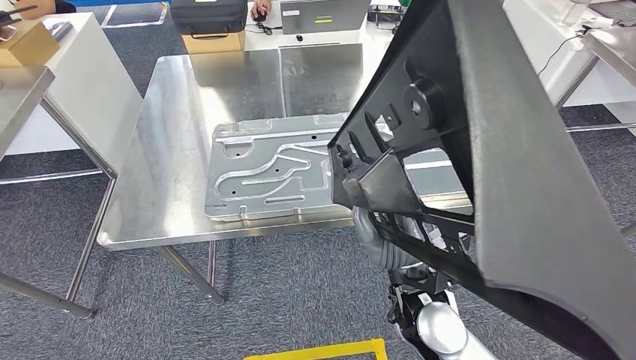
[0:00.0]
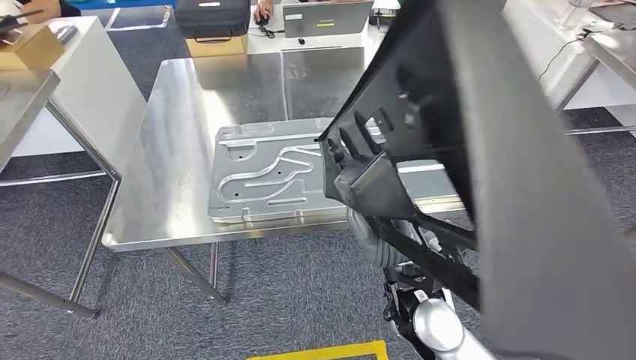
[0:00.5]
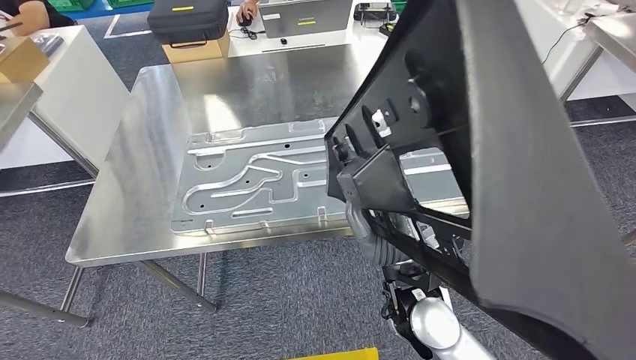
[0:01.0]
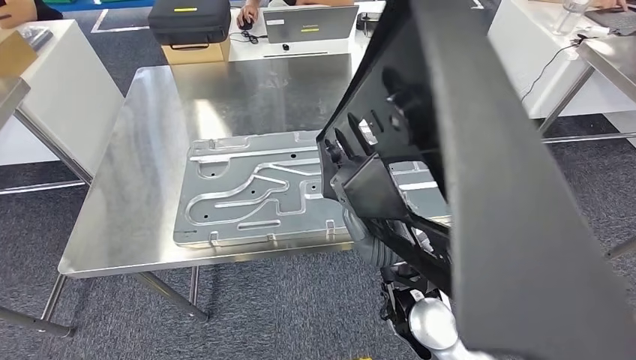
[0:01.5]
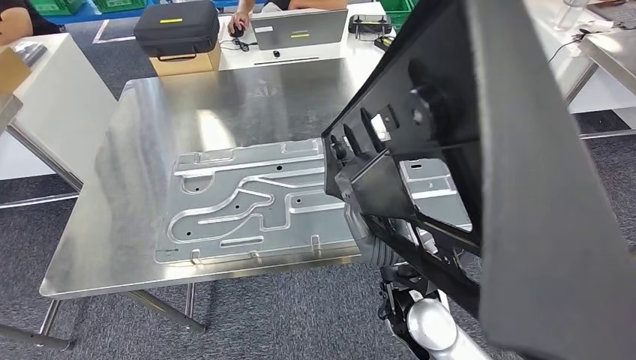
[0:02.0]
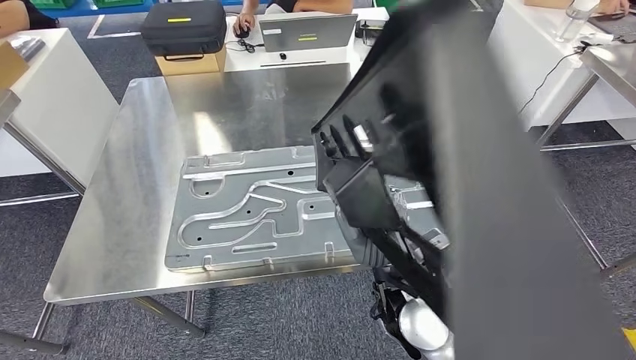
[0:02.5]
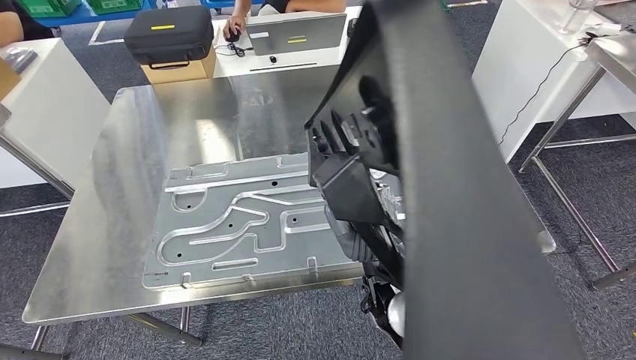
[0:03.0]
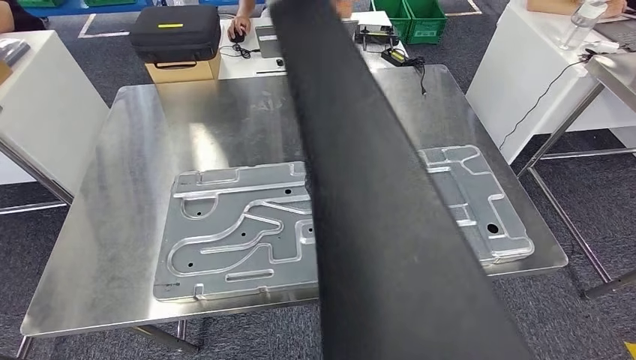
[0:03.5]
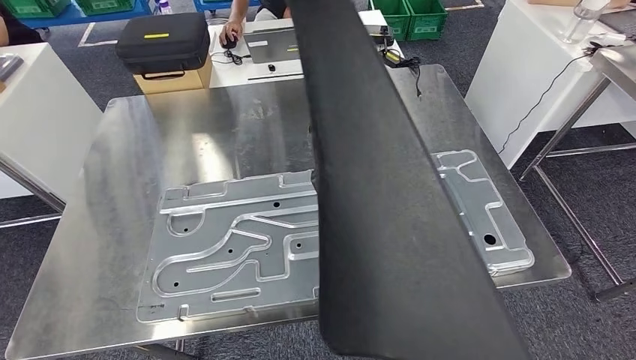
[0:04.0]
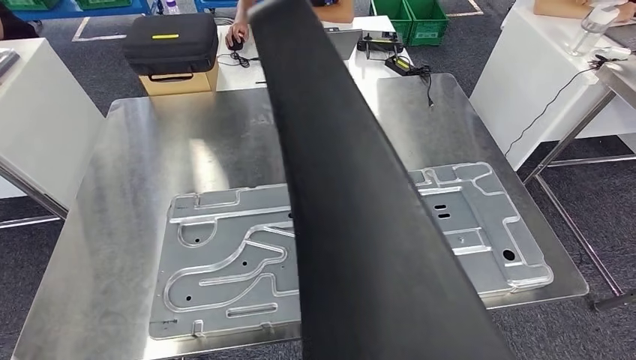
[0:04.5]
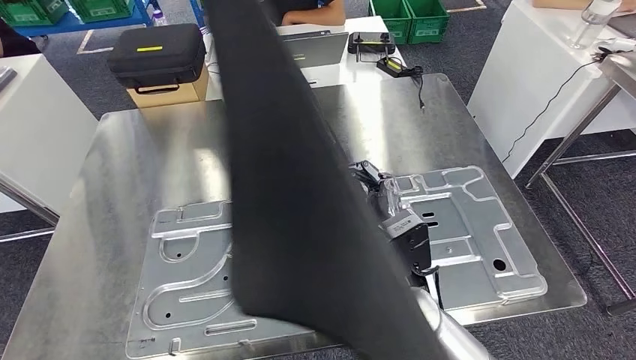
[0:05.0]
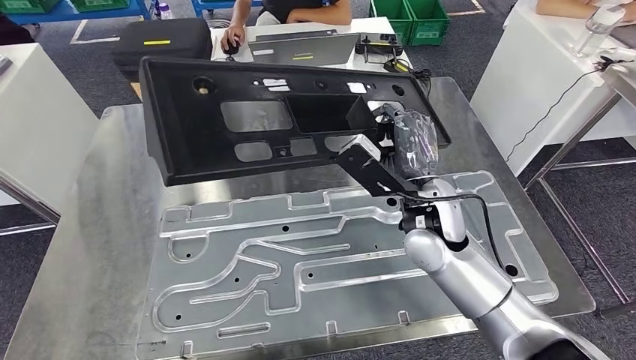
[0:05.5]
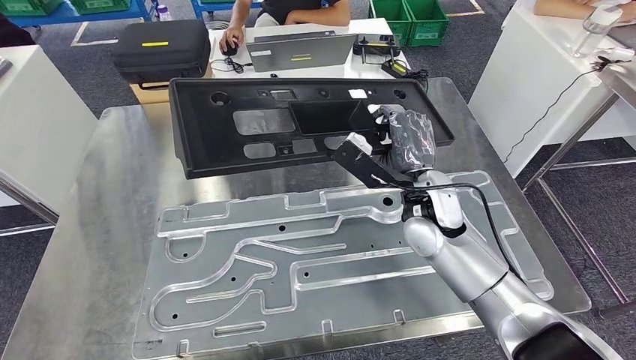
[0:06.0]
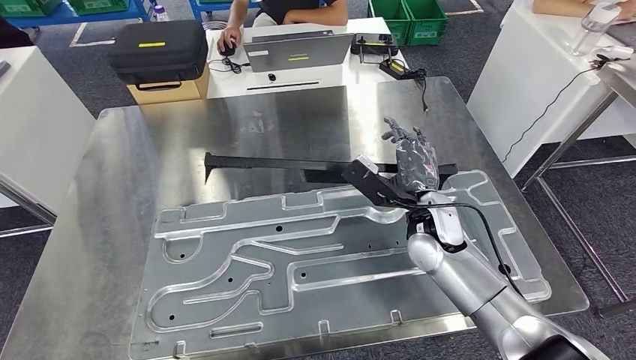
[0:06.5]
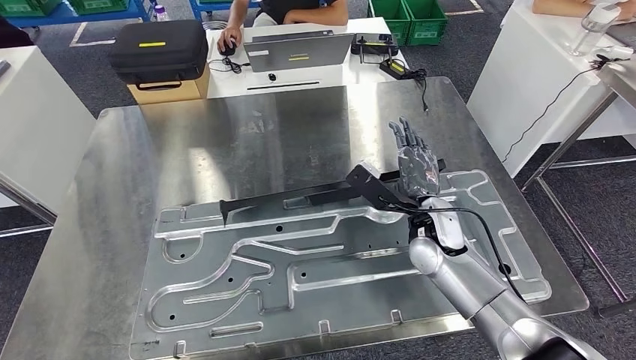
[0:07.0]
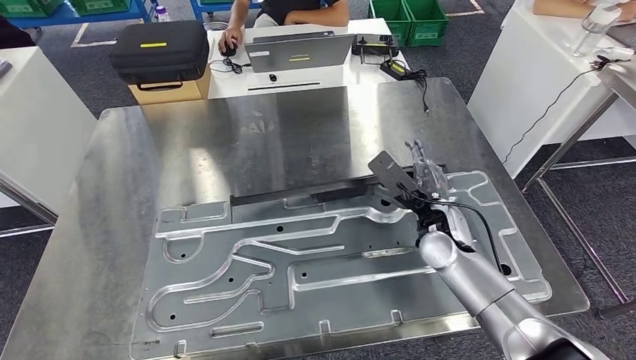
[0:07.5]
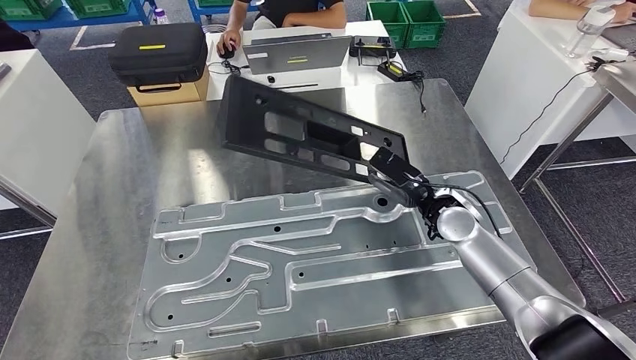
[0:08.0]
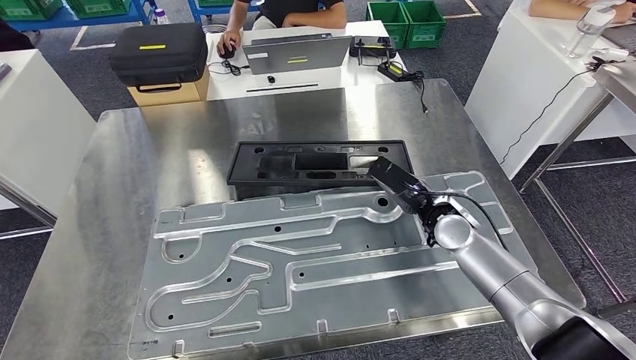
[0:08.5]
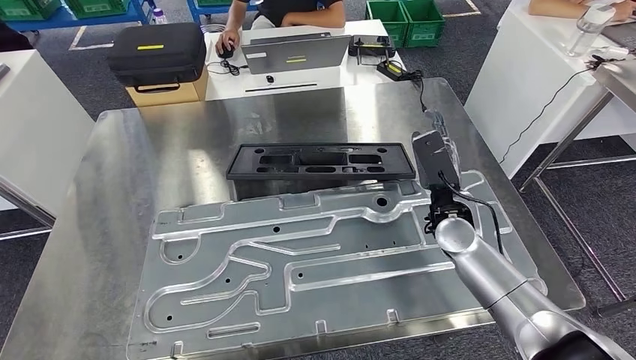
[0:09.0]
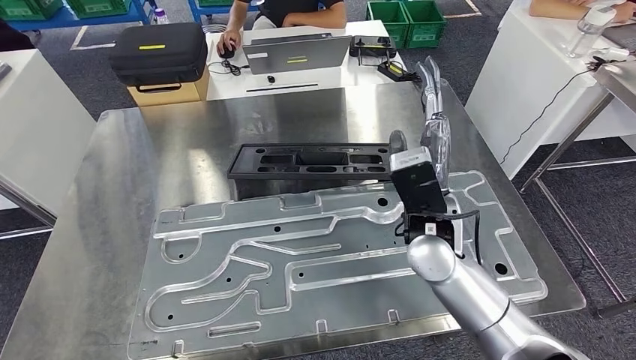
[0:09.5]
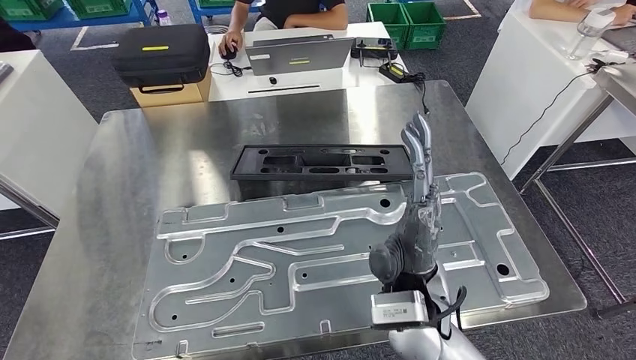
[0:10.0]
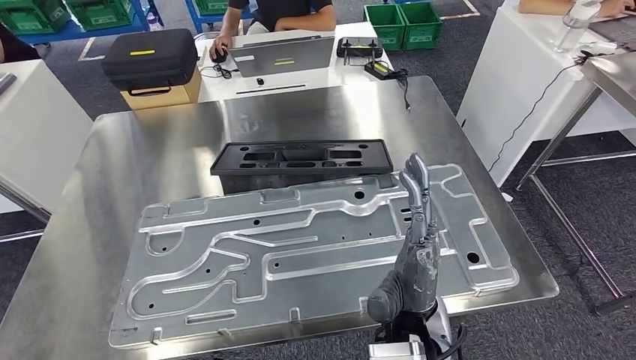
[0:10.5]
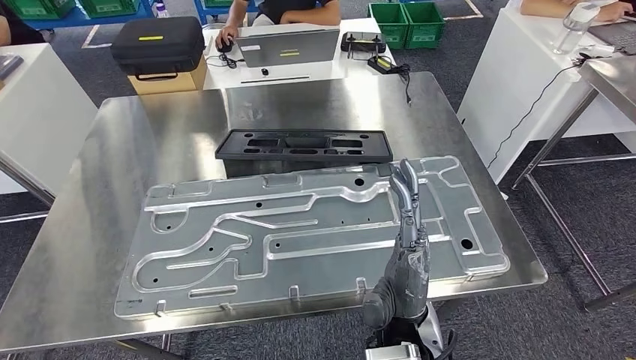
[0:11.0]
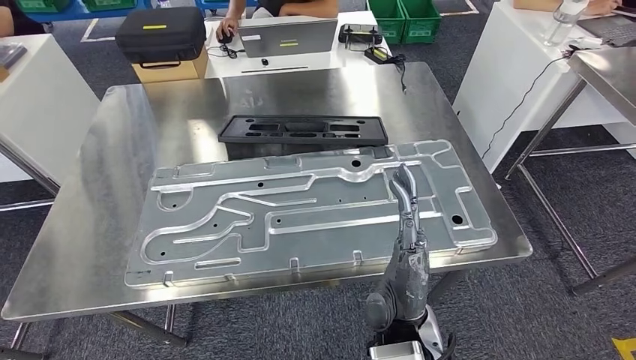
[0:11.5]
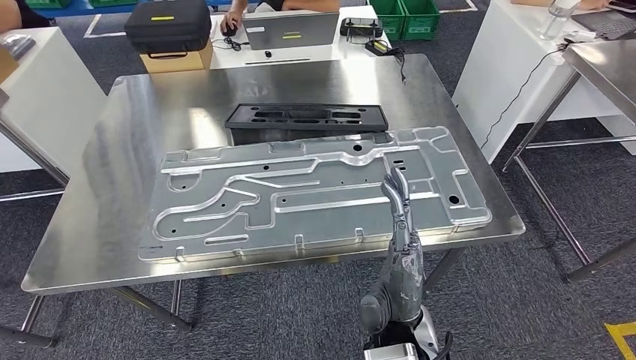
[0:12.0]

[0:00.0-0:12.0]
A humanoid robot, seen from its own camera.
Step, 0:00.0 to 0:10.5: Insert the large material into the corresponding slot on the workbench.

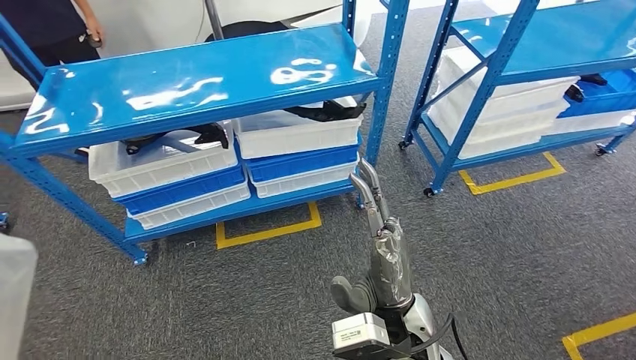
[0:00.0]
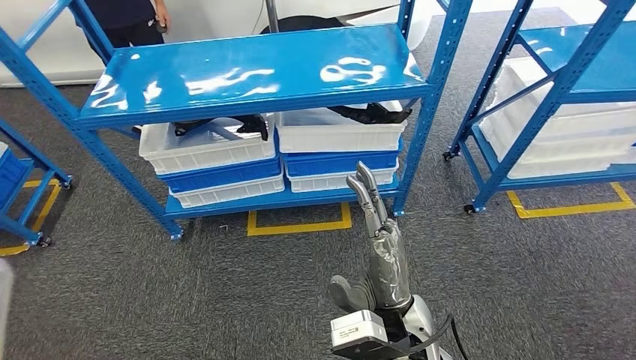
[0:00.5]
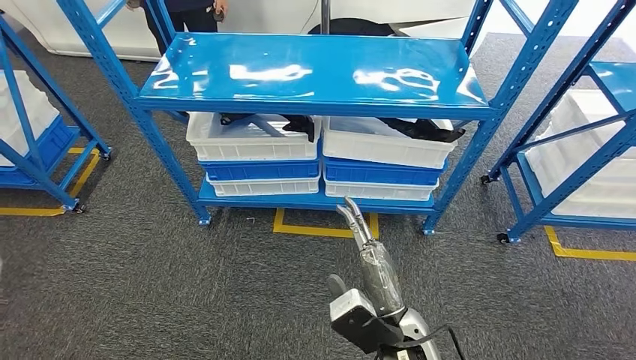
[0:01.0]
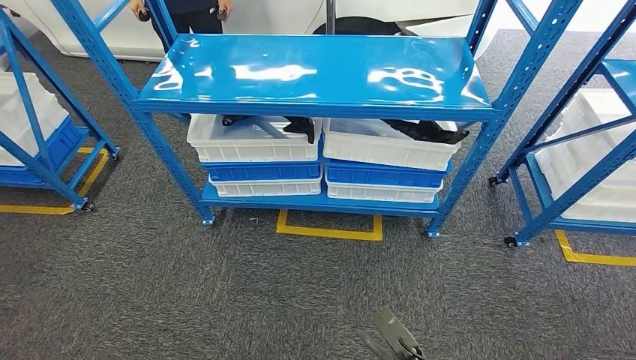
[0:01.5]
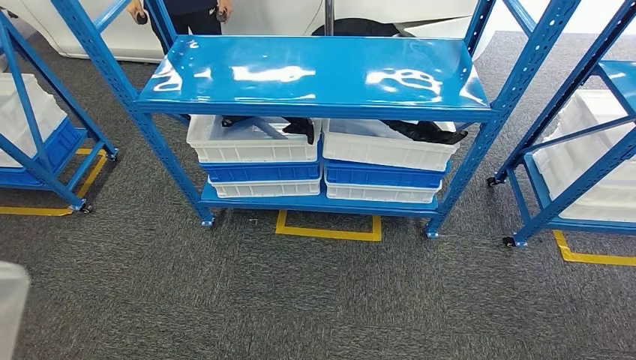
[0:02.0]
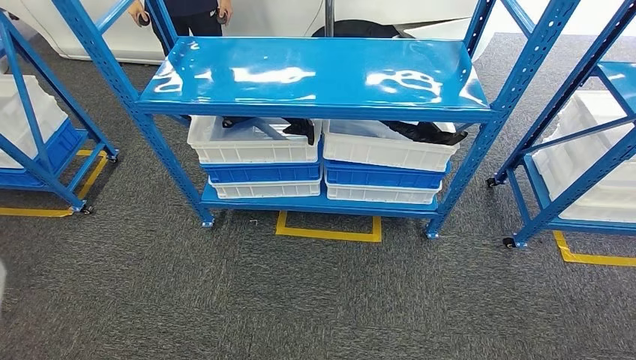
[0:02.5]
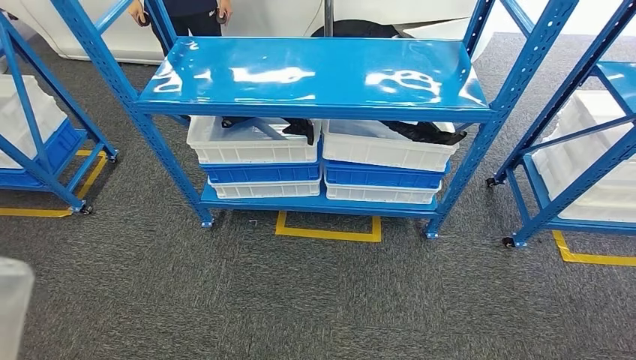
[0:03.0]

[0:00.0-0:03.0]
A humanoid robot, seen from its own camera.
Step, 0:00.0 to 0:03.0: Move to the initial position of the shelf.
0:01.5 to 0:03.0: The left hand travels to the left and backward by roughly 10 cm, while the right hand heads backward and downward, covering roughly 20 cm.
